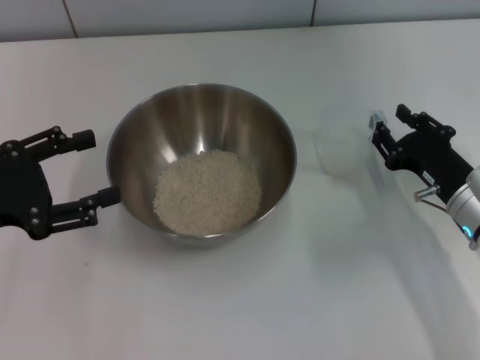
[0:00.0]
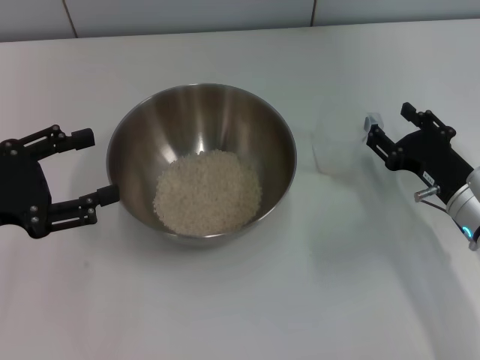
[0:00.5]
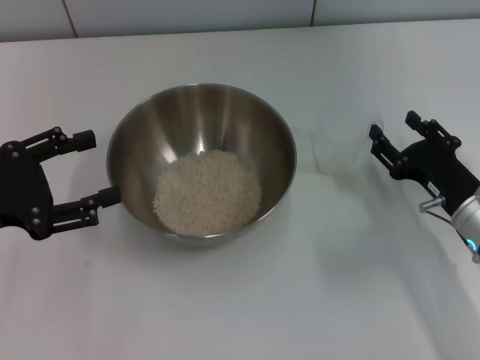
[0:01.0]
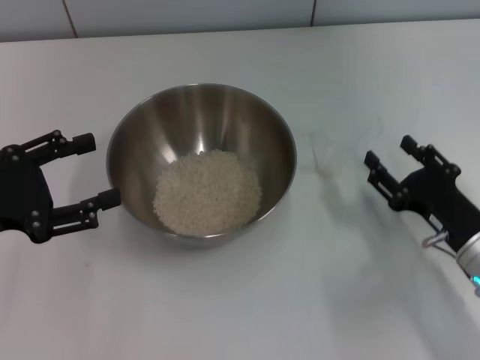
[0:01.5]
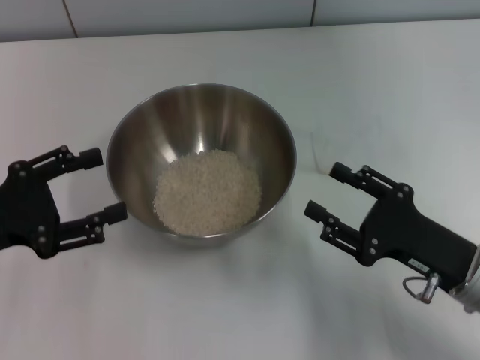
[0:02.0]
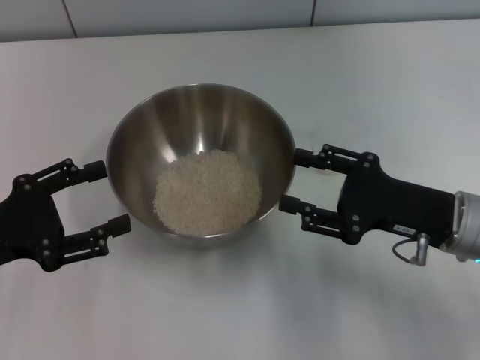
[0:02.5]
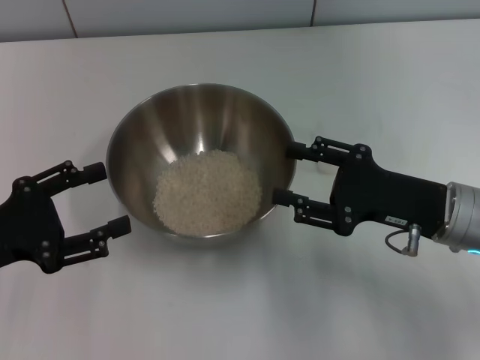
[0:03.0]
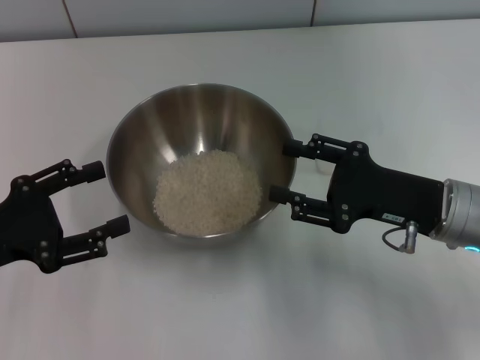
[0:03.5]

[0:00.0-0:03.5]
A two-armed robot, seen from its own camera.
Task of the whole recording: Place the bowl in the middle of the table with one hand and pour the rice from the grain cup into it with the other hand.
0:00.0 to 0:02.0: The right gripper is displaced backward by some 10 cm, and opens its fingers.
0:02.0 to 0:03.5: The right gripper moves forward, some 5 cm.
